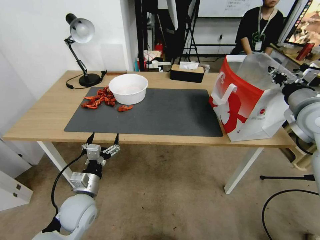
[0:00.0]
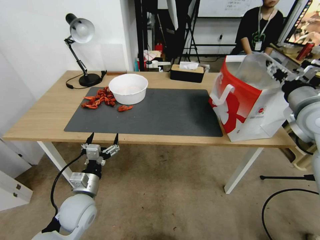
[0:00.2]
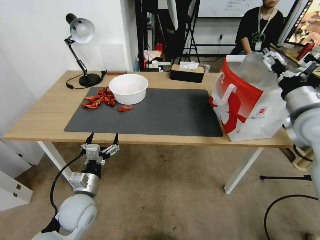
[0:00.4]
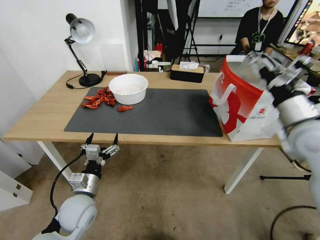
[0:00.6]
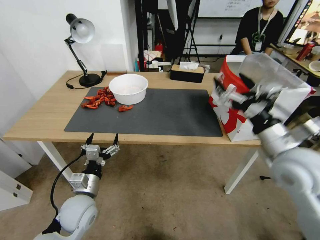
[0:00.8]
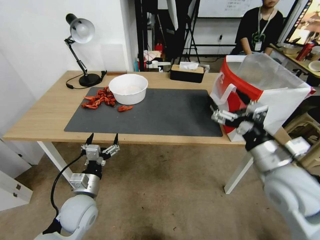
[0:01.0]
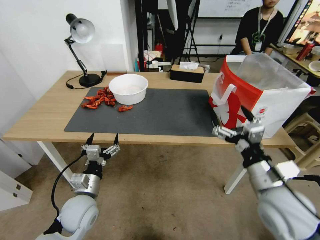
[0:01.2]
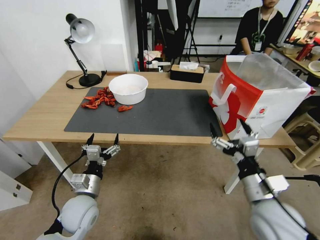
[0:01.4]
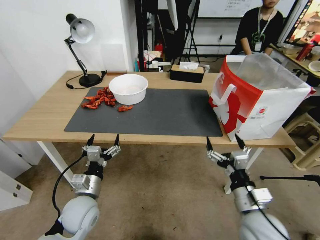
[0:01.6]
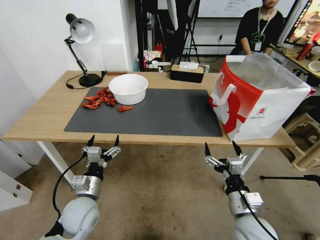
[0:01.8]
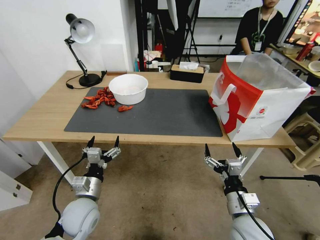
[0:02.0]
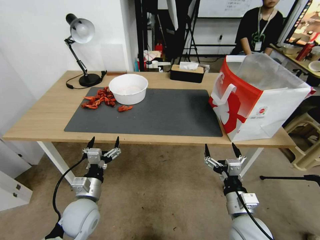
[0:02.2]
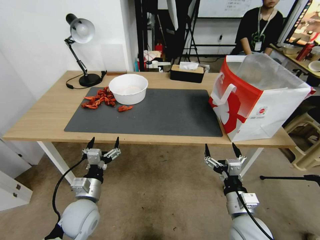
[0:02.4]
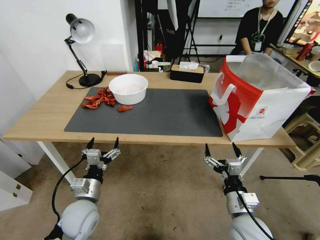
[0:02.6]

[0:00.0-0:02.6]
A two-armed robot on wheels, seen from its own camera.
Task of the whole recording: Close the takeout container lid, then place the container into the takeout bag.
0:00.0 to 0:01.2: The right gripper goes some 25 cm backward, downward and to the left, and opens.
0:01.2 to 0:02.6: The right gripper travels downward by about 15 cm.

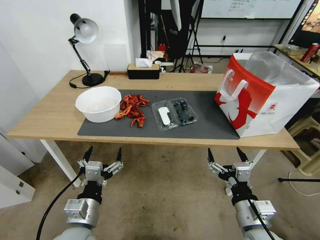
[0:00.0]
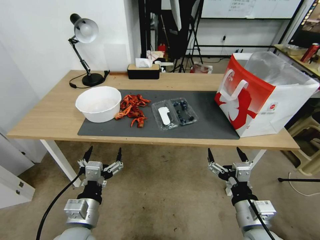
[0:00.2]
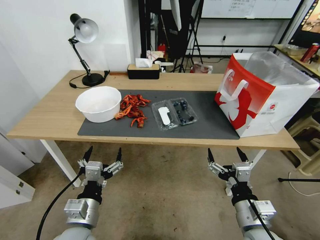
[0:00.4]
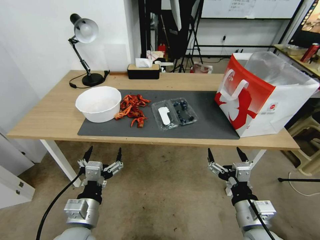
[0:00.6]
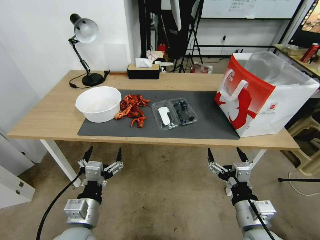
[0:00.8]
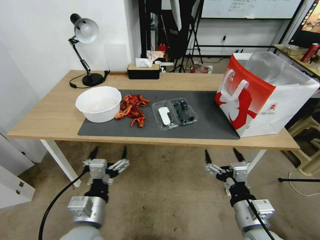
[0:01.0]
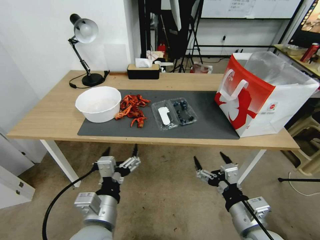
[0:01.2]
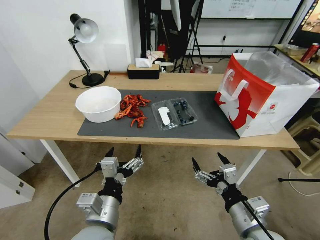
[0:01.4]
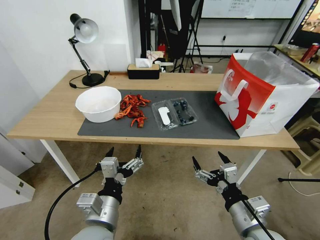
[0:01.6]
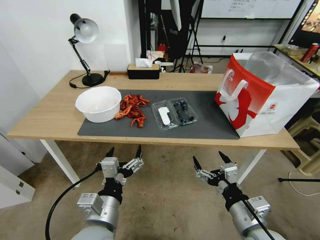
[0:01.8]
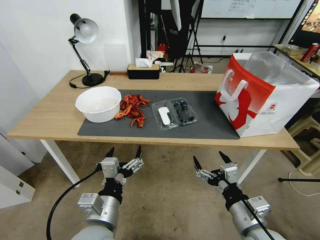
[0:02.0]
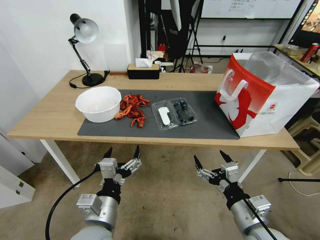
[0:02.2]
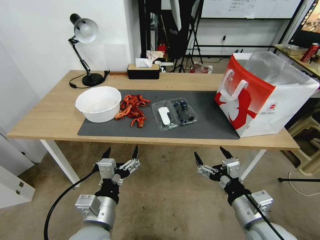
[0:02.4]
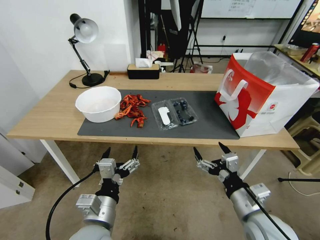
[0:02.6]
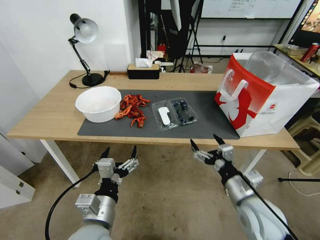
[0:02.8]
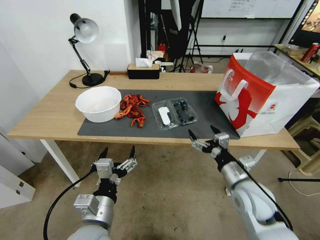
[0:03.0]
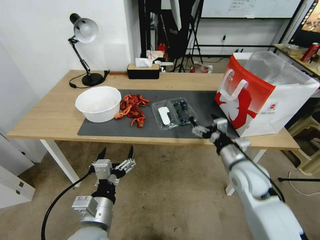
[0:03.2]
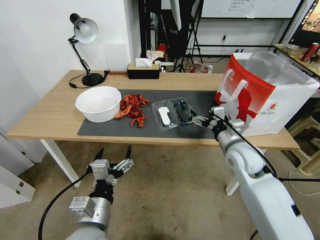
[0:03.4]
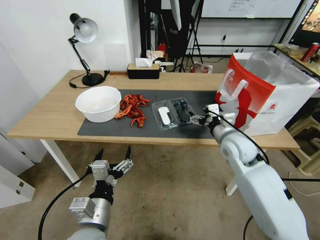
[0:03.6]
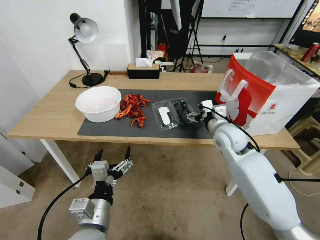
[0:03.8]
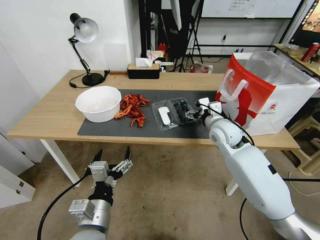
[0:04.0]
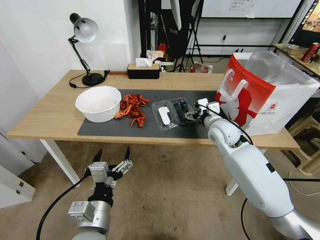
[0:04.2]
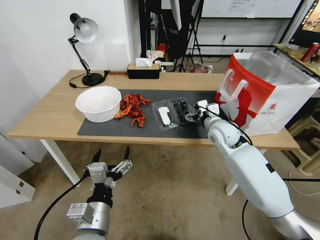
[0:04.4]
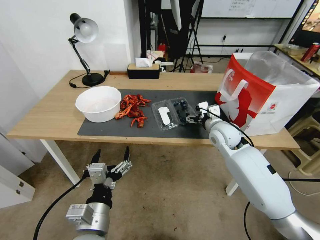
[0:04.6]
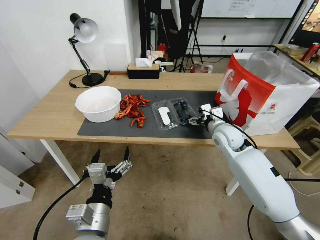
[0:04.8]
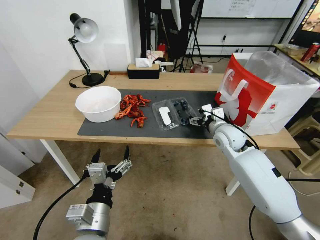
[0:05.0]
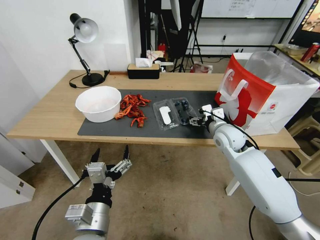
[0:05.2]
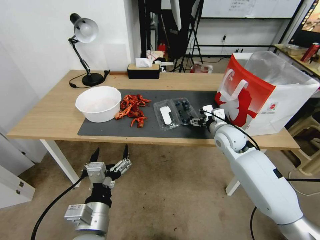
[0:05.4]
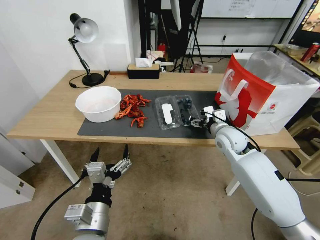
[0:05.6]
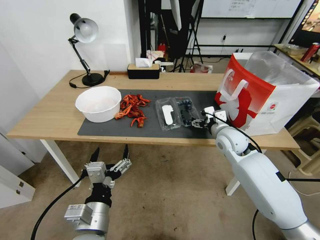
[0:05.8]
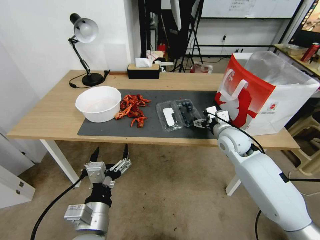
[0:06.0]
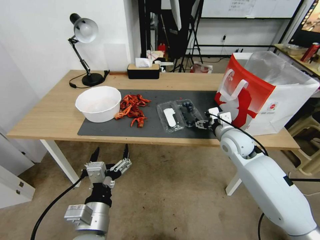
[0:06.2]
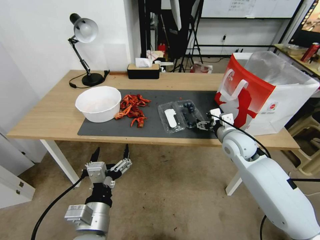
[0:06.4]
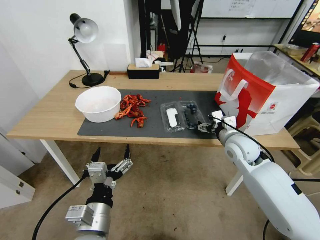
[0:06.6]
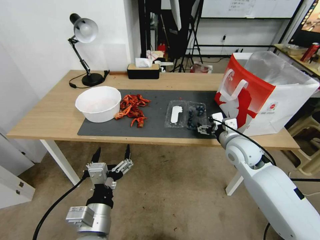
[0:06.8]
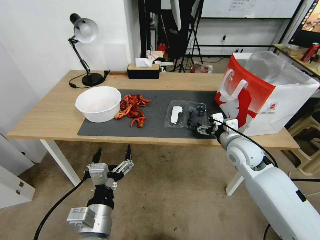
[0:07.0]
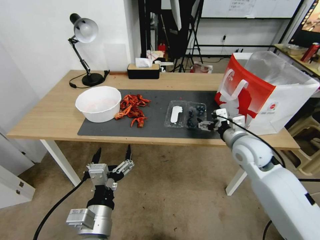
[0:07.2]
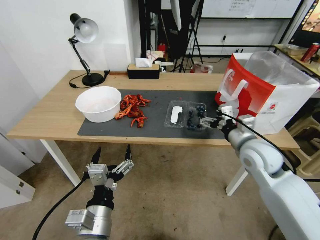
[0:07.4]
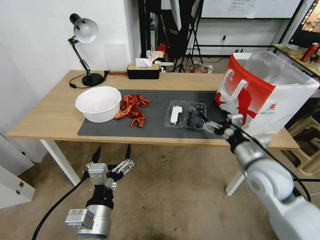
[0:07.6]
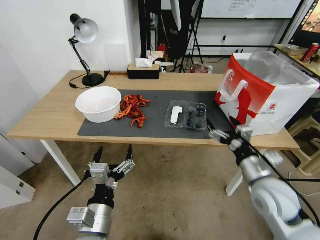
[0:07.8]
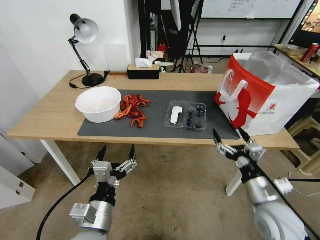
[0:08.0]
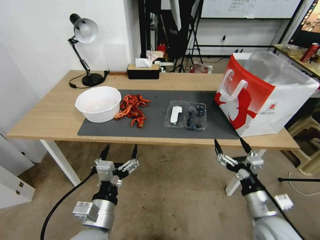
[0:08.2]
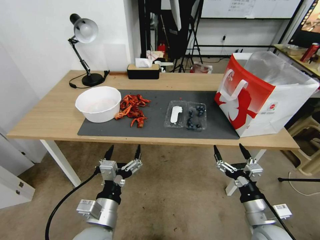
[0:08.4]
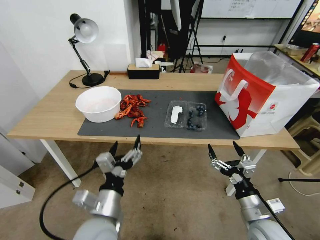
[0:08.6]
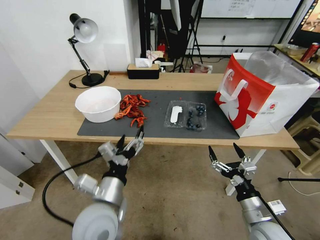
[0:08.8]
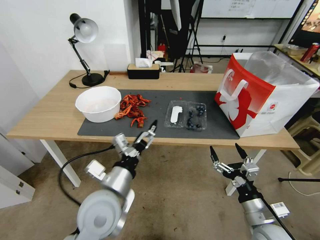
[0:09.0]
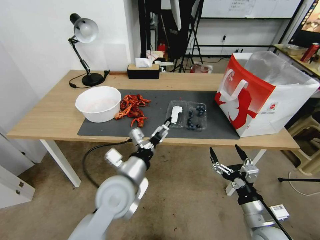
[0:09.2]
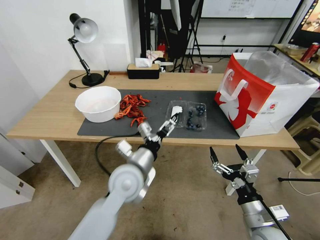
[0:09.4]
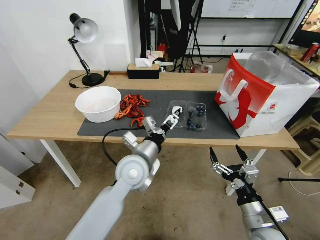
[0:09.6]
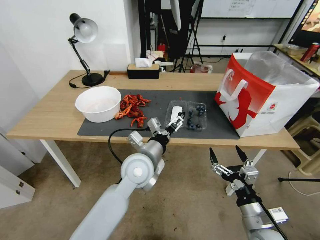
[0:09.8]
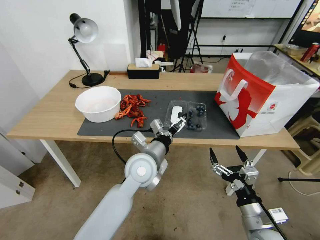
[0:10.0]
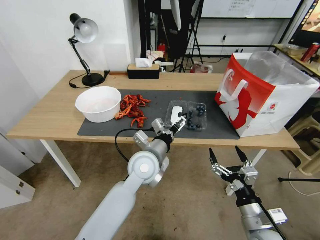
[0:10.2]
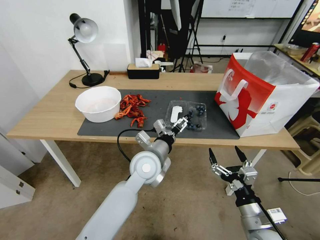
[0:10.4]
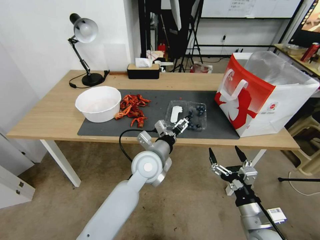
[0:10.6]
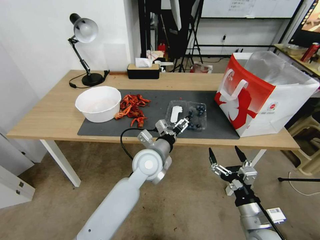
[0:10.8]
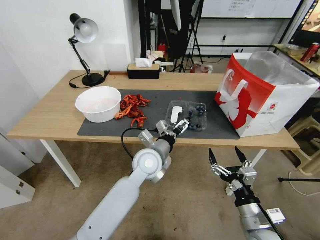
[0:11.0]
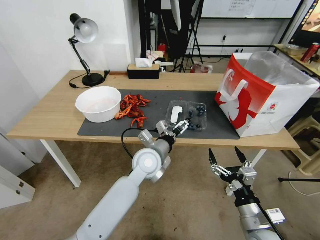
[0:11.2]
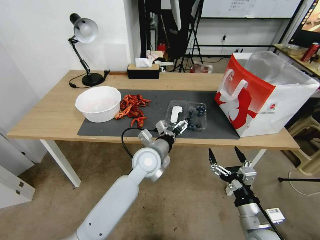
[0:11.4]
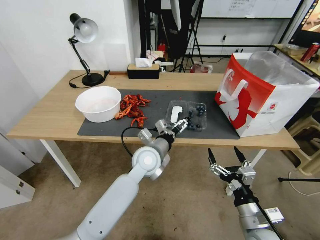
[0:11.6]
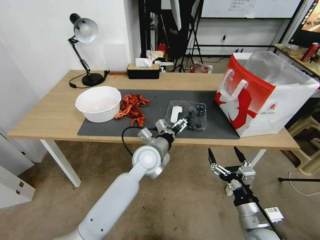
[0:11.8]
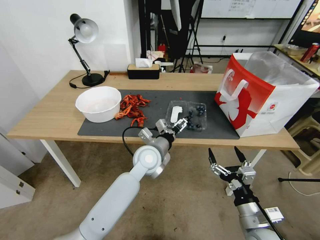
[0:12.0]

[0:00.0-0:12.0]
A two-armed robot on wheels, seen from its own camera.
Task of the whole recording: Close the takeout container lid, then place the container into the takeout bag.
0:01.6 to 0:03.0: The right gripper goes approximately 15 cm forward.
0:03.0 to 0:04.4: The right gripper moves forward, approximately 20 cm.
0:04.4 to 0:06.0: The grippers stay close to where they were, moving slightly.
0:06.0 to 0:07.6: The right gripper travels backward by roughly 15 cm.
0:07.6 to 0:09.0: The right gripper is displaced backward and downward by about 15 cm; the left gripper is displaced forward by roughly 10 cm.
0:09.0 to 0:10.4: The left gripper goes approximately 15 cm forward and to the right.
0:10.4 to 0:12.0: The grippers move only a little.

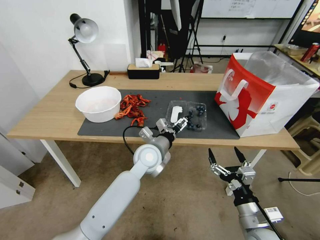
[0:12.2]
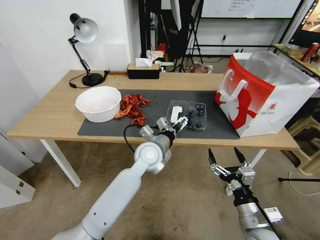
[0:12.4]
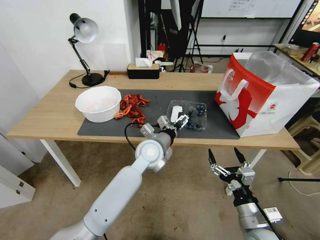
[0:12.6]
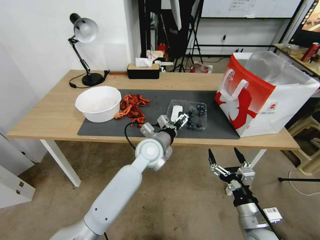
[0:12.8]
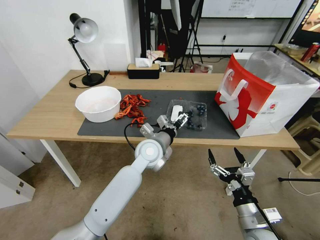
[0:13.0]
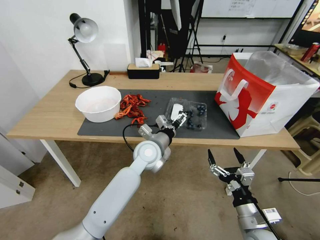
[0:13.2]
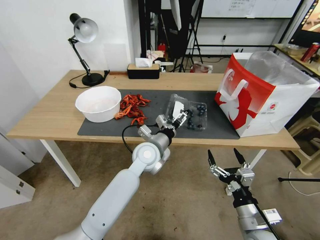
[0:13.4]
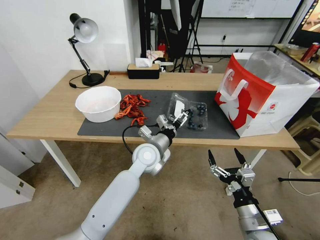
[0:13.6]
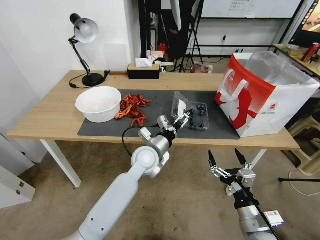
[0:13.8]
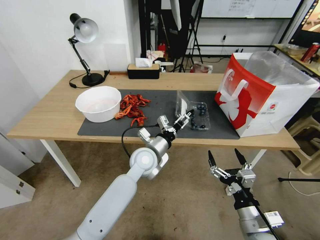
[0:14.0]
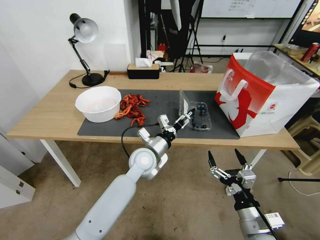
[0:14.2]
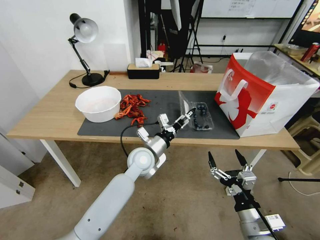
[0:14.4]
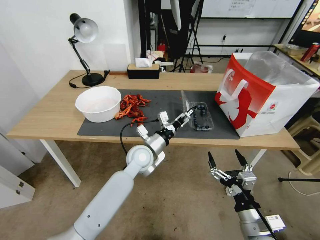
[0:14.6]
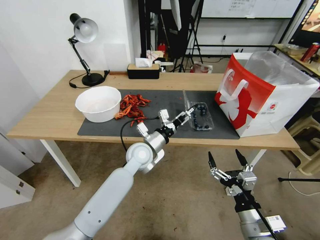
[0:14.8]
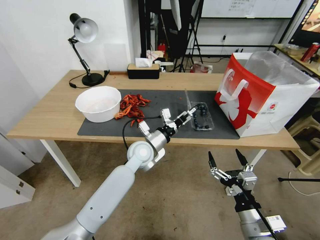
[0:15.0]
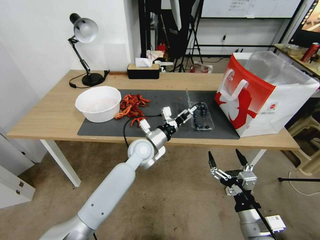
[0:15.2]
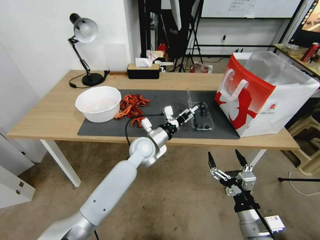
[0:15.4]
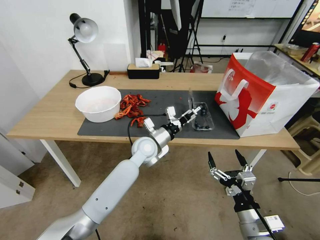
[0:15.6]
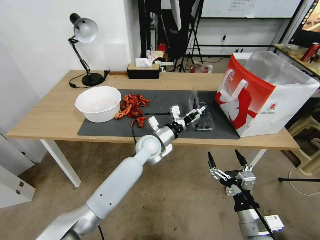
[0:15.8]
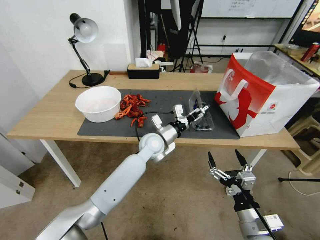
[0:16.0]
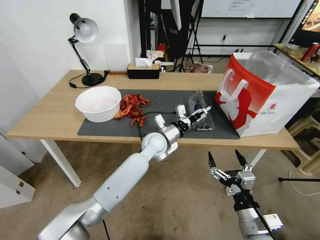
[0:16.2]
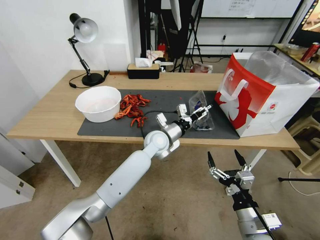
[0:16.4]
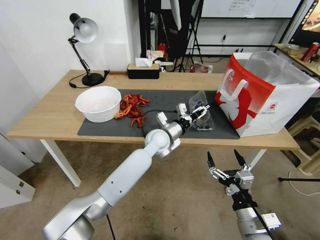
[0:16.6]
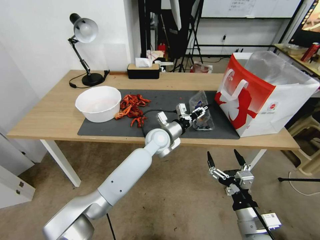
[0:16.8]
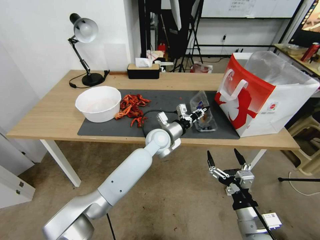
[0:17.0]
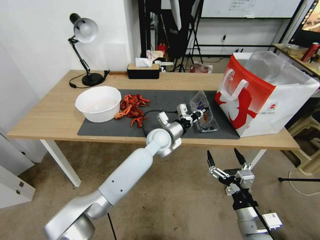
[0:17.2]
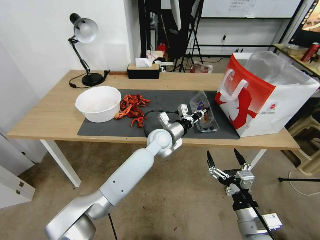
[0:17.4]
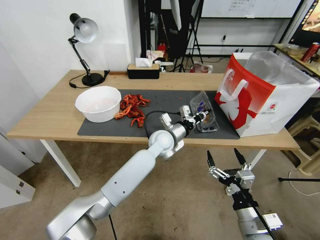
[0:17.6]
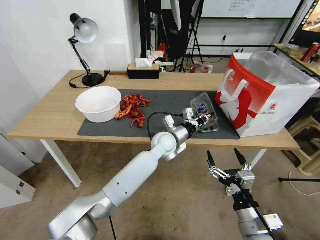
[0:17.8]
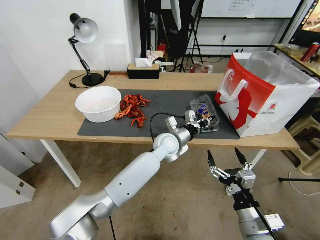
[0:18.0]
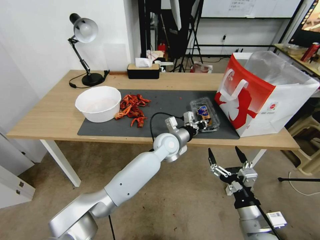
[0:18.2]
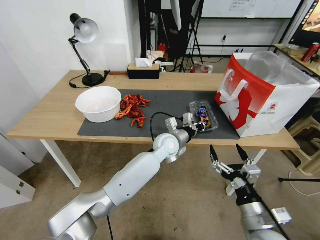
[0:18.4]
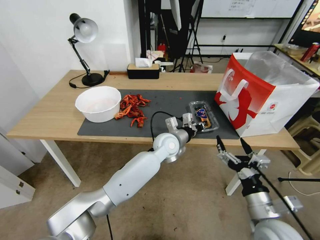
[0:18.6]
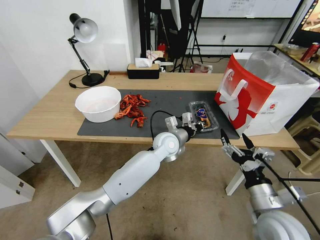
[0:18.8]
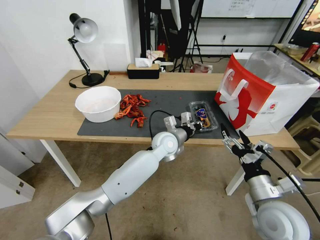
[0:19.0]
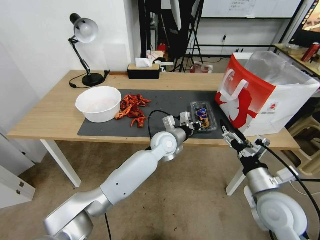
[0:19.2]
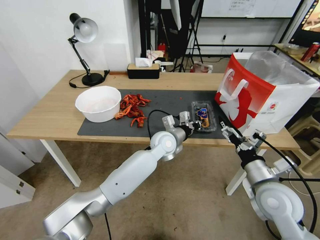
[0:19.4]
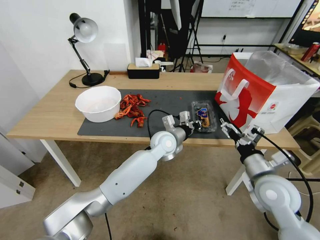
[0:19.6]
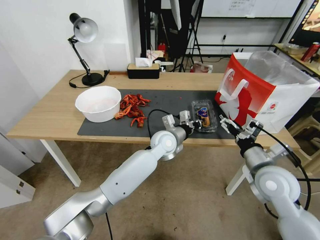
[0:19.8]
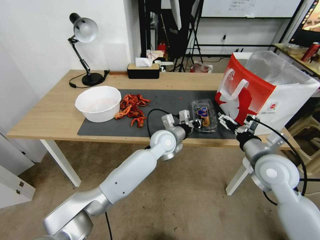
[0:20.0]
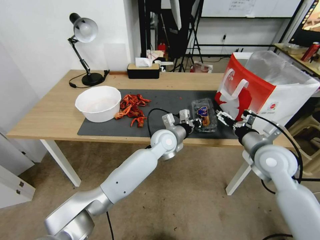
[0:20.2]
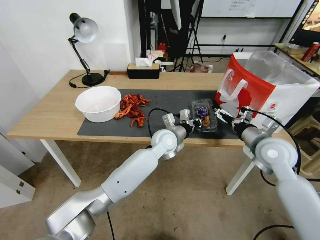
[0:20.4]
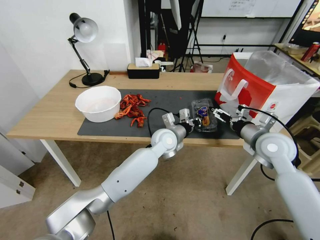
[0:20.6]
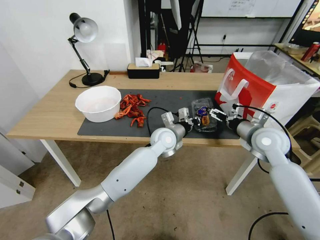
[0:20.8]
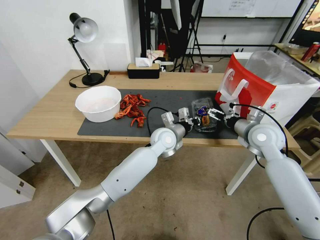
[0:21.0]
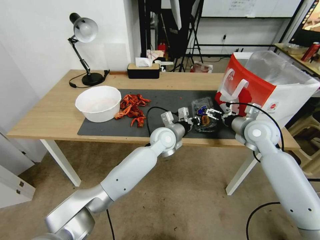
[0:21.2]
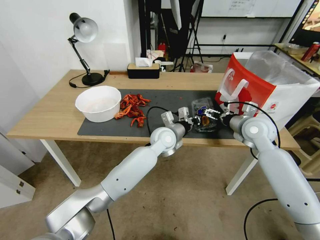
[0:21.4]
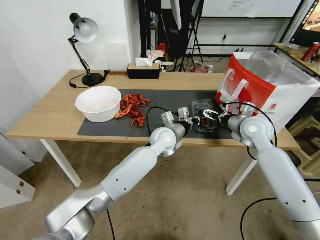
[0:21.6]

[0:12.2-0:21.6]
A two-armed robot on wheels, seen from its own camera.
Task of the whole recording: Close the takeout container lid, then place the container into the takeout bag.
0:12.2 to 0:13.8: There are only small adjustments of the grippers.
0:15.4 to 0:17.0: The left gripper shifts roughly 5 cm to the right, and closes up.
0:18.4 to 0:20.0: The right gripper goes approximately 15 cm forward and upward.
0:20.0 to 0:21.6: The right gripper moves forward, roughly 15 cm.
